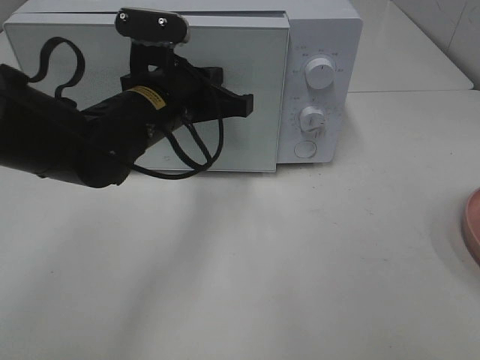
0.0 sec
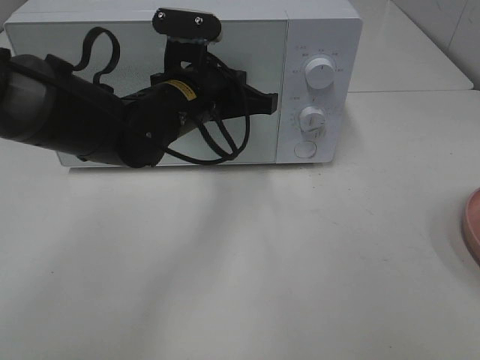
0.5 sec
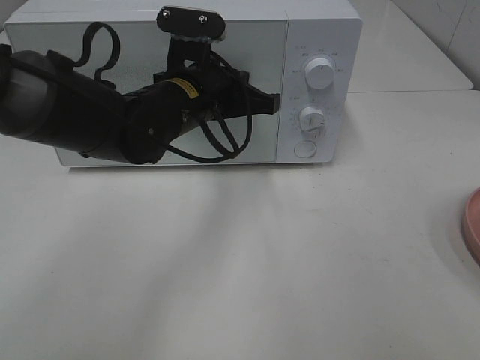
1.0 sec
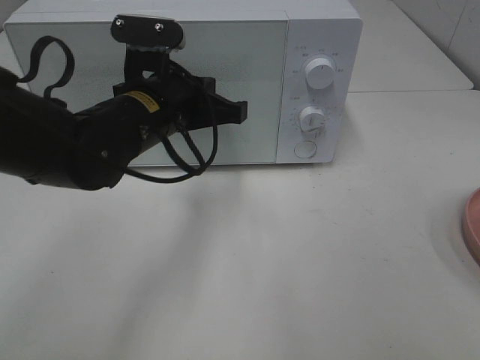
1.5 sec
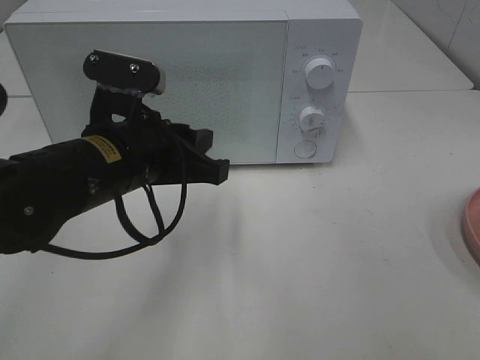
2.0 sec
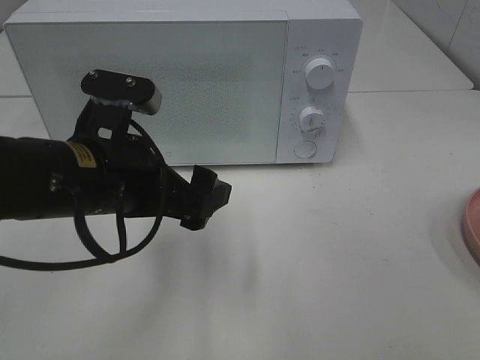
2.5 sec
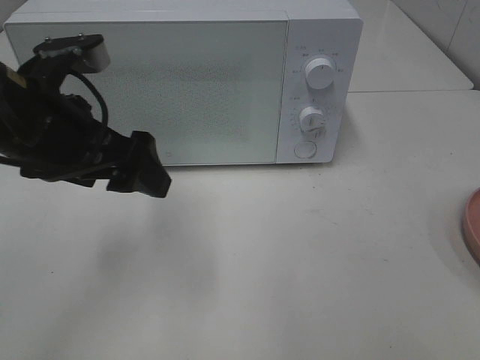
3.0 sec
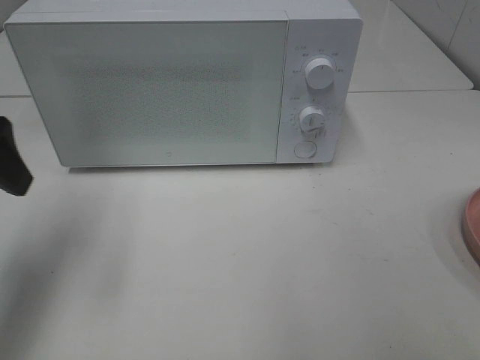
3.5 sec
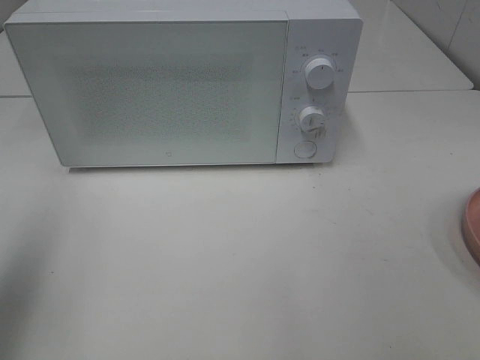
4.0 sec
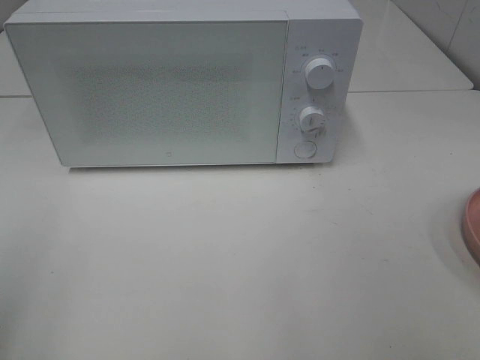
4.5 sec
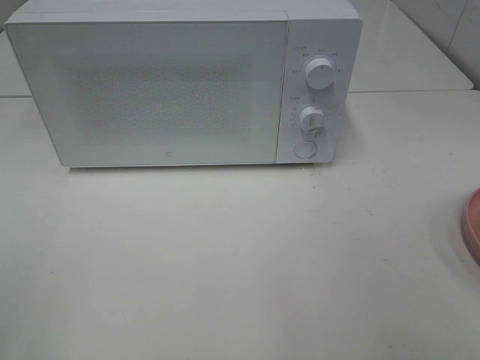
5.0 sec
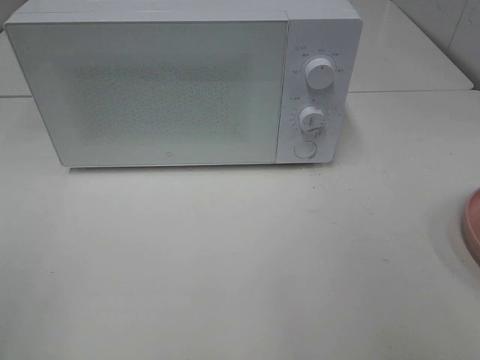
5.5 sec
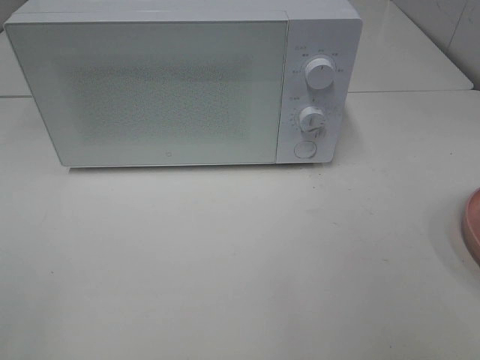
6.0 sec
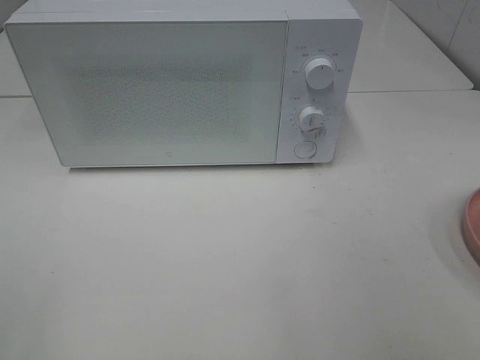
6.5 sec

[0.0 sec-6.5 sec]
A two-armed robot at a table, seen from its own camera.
Task of the whole recording: Heat Sandwich.
0.0 sec to 2.0 sec: The left gripper travels backward by about 10 cm, and opens.
2.0 sec to 4.5 sec: The left gripper shifts some 30 cm to the left, backward and upward, and opens its fingers.

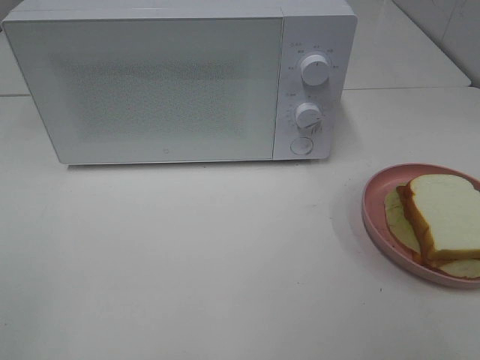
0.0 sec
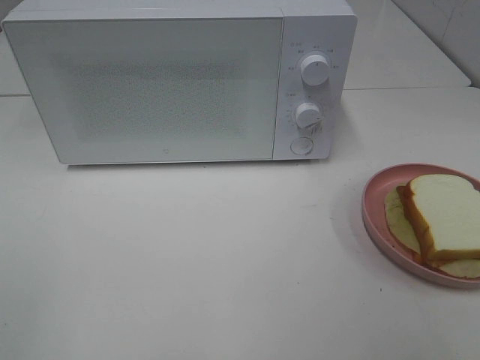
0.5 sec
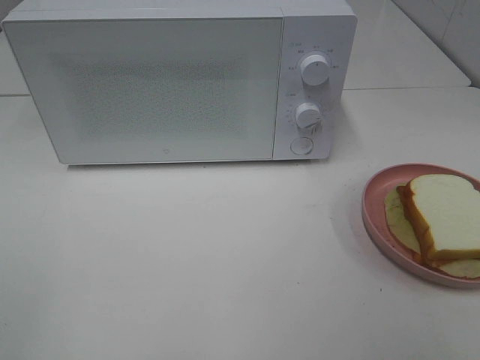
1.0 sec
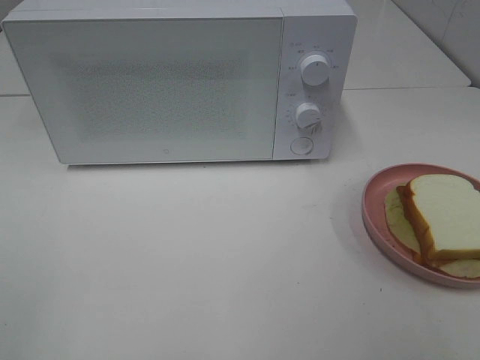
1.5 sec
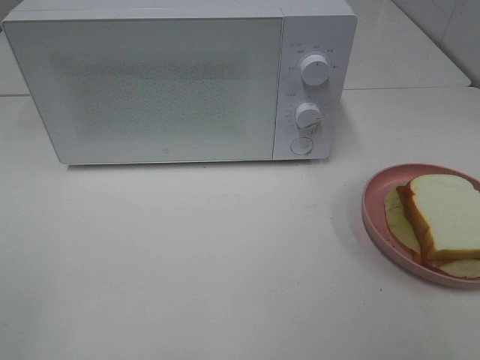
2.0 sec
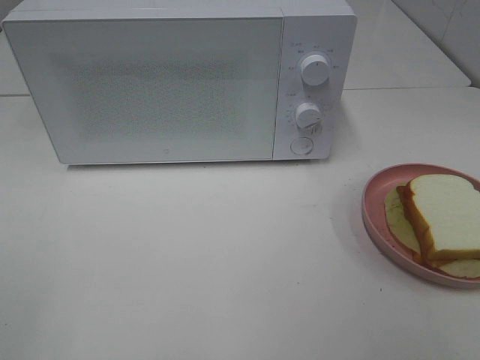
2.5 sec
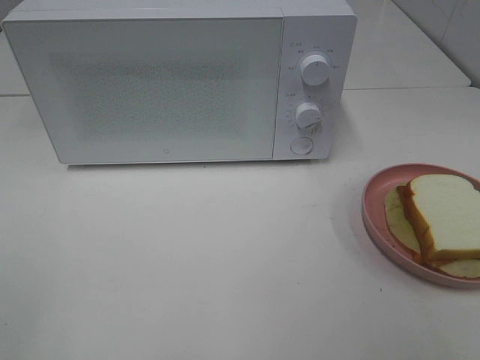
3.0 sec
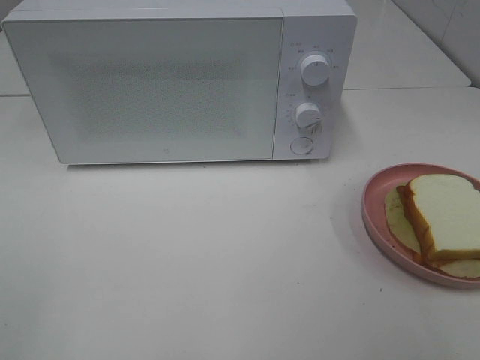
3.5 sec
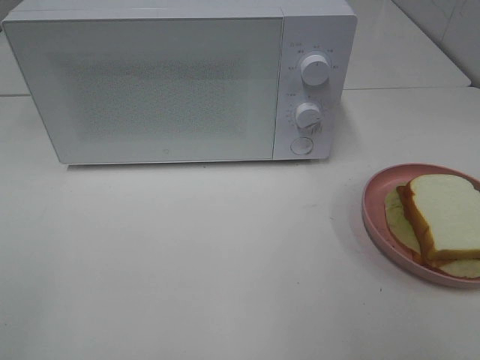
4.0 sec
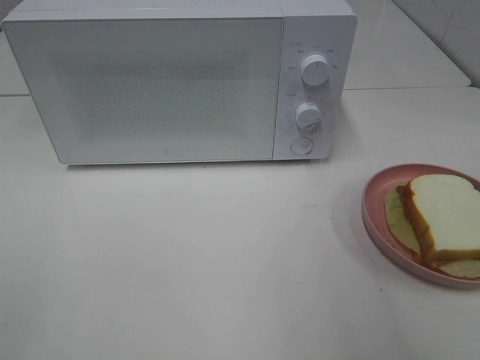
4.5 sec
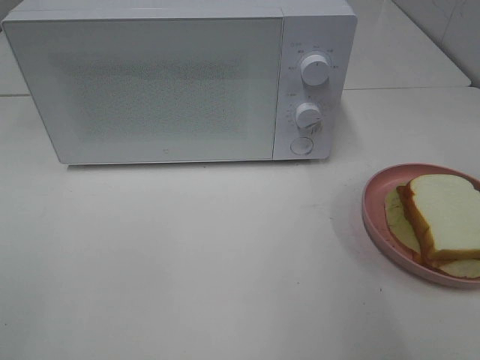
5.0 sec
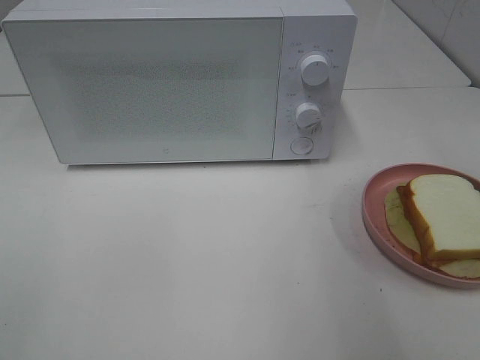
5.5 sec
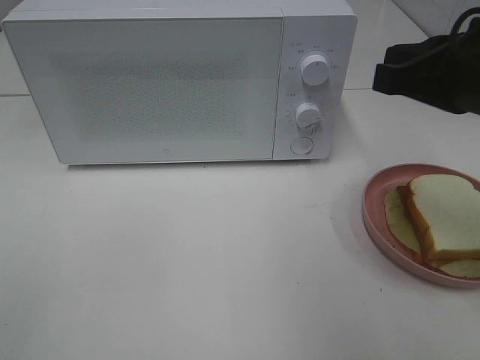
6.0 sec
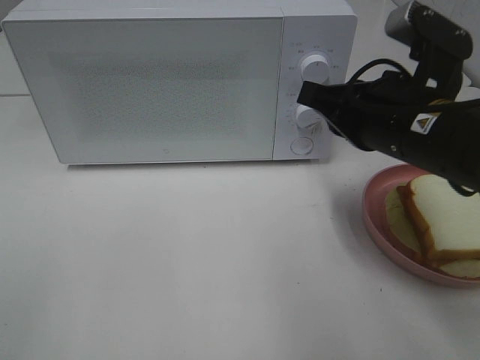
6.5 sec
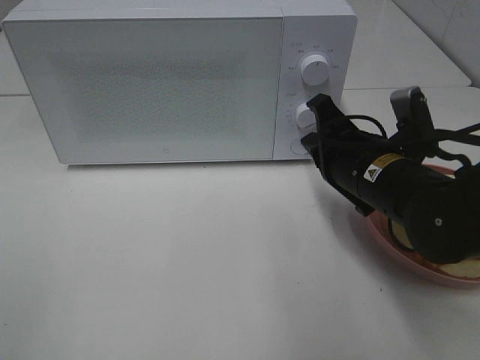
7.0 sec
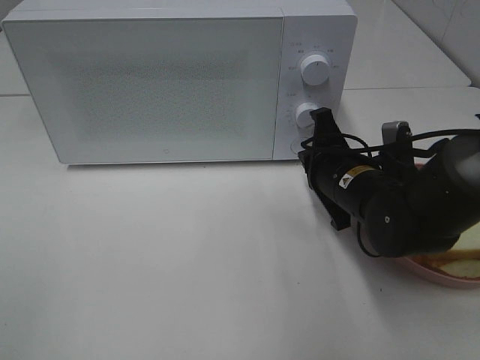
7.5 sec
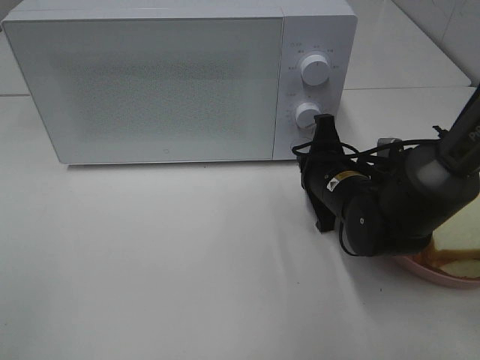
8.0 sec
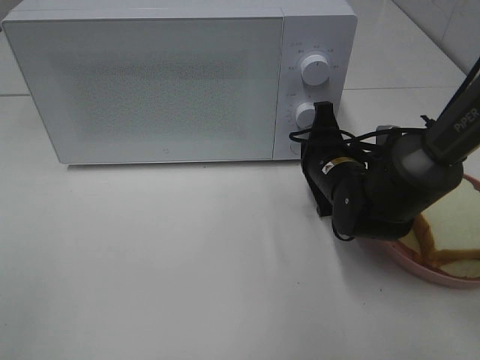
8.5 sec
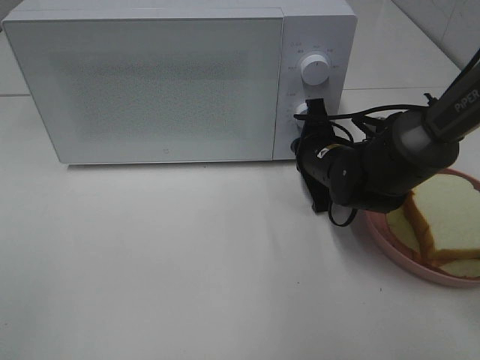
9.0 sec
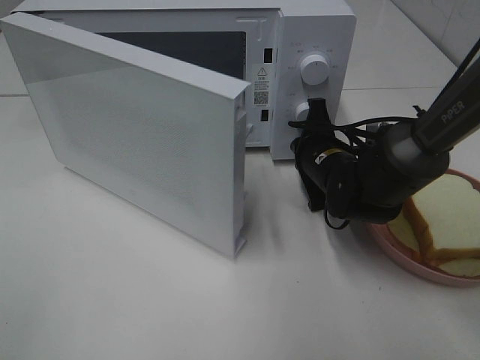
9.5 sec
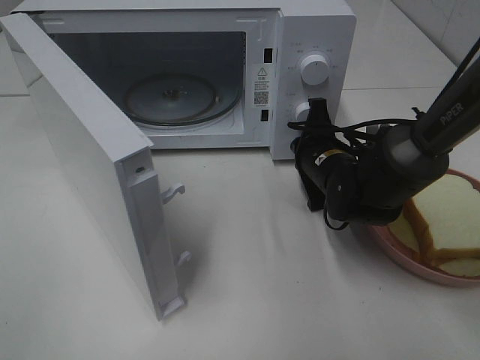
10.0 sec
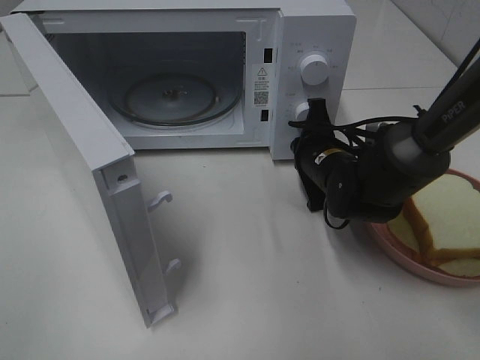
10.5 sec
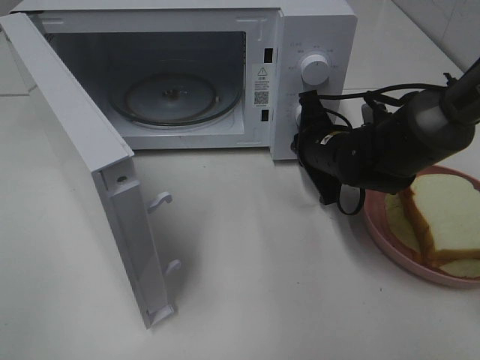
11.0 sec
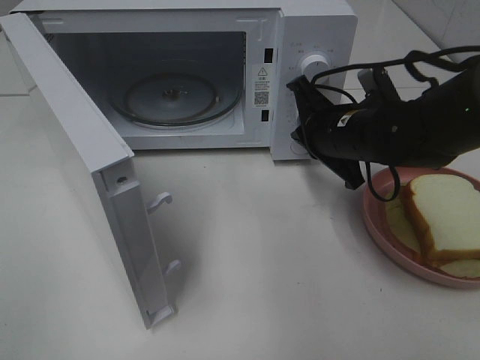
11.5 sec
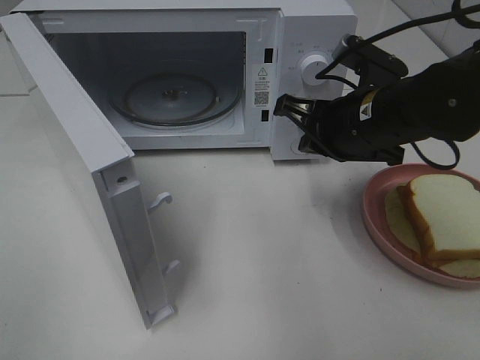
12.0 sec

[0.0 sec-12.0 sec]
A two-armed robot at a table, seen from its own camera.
Task of the whole recording: Heat Sandwich.
Step, 0.0 sec to 11.0 sec: Right hand: press the switch.
0.0 sec to 2.0 sec: The two grippers keep their place.
4.0 sec to 6.0 sec: The right gripper travels forward and to the left by about 20 cm, and closes up.
6.0 sec to 8.0 sec: The right gripper shifts some 20 cm downward and forward.
10.0 sec to 12.0 sec: The right gripper goes approximately 15 cm upward and backward.

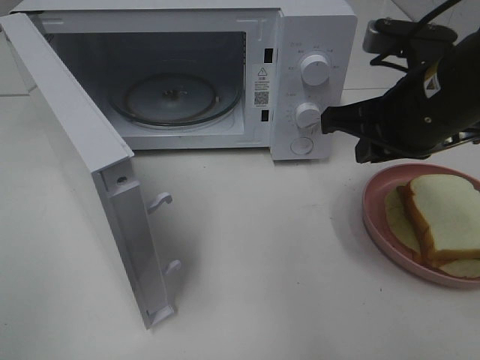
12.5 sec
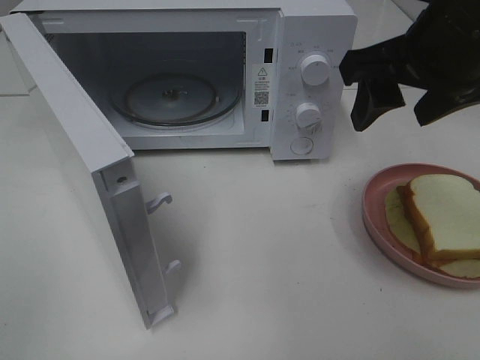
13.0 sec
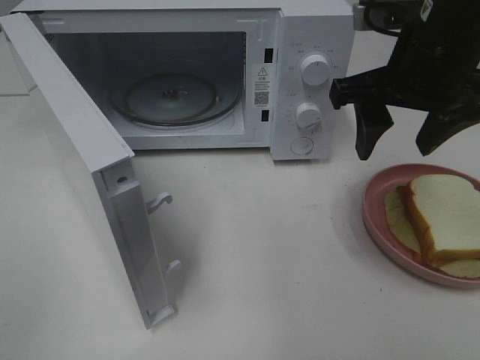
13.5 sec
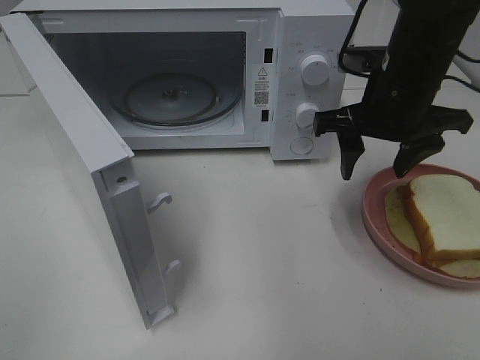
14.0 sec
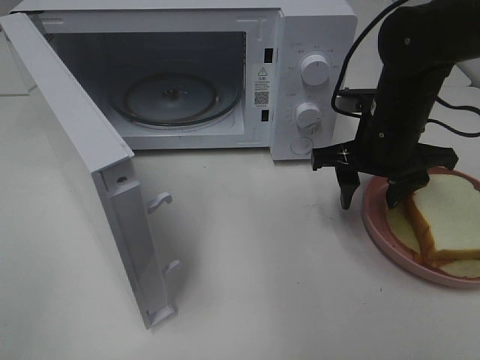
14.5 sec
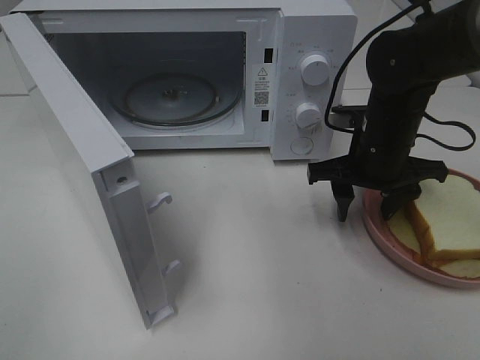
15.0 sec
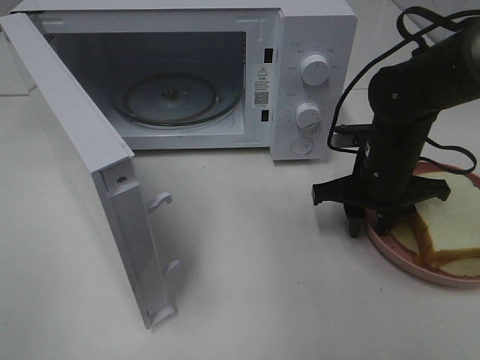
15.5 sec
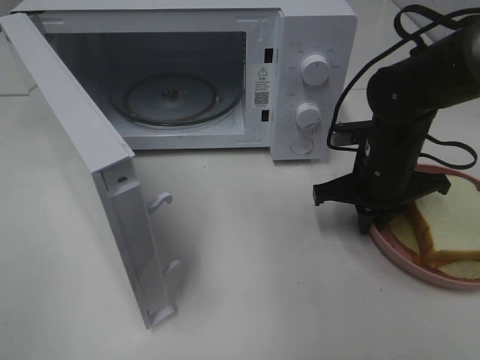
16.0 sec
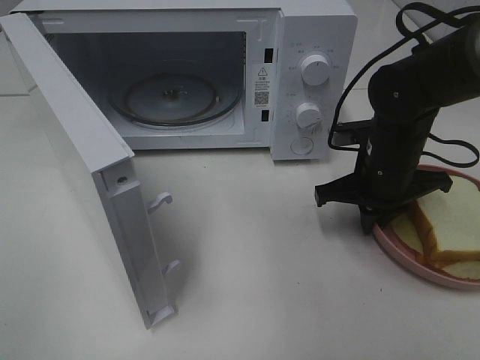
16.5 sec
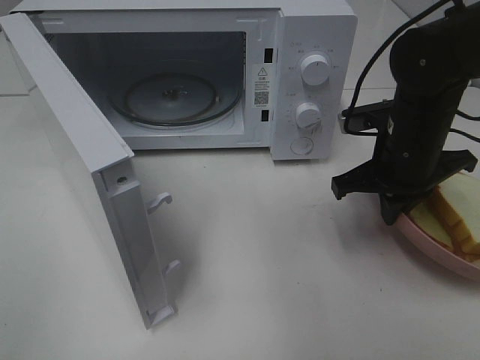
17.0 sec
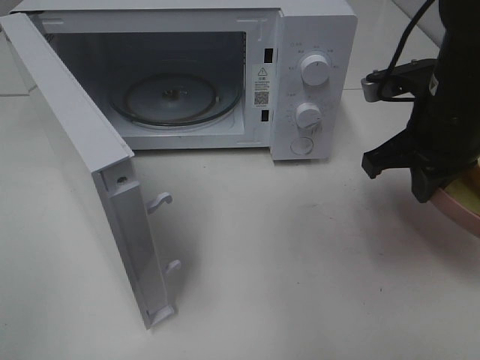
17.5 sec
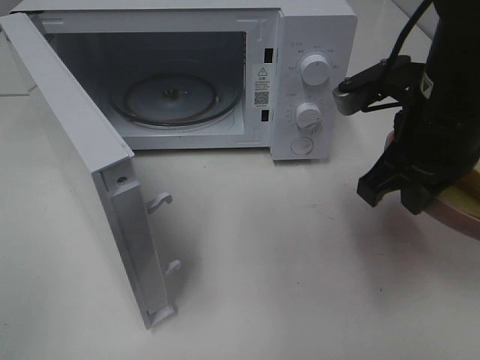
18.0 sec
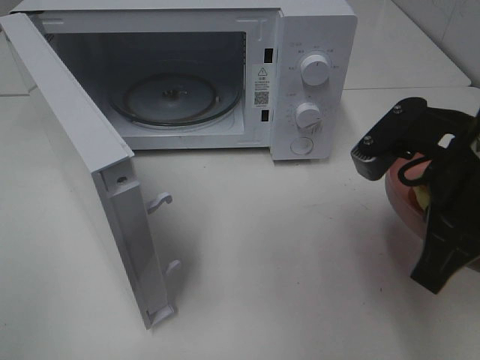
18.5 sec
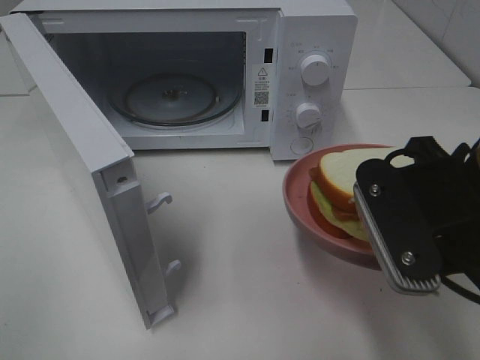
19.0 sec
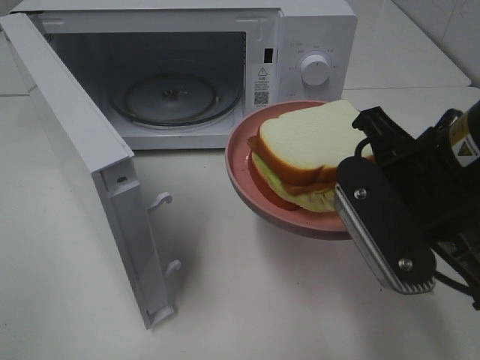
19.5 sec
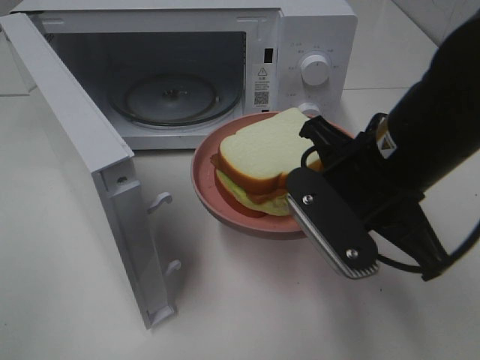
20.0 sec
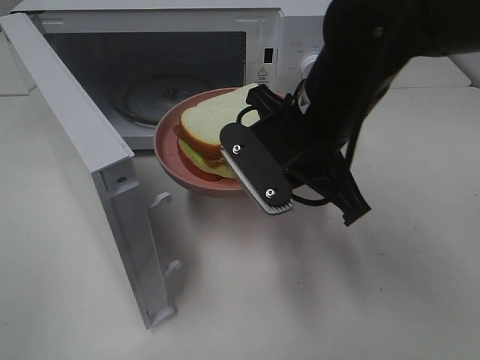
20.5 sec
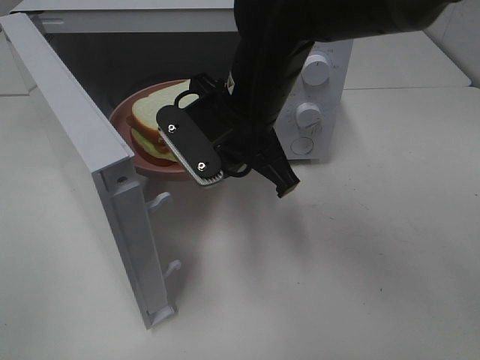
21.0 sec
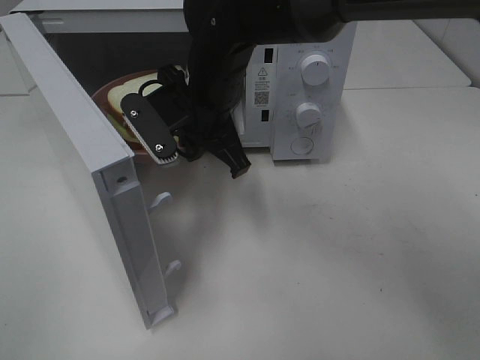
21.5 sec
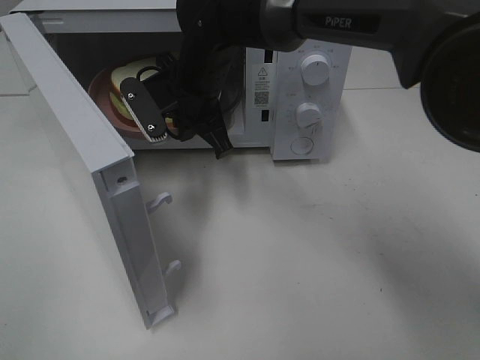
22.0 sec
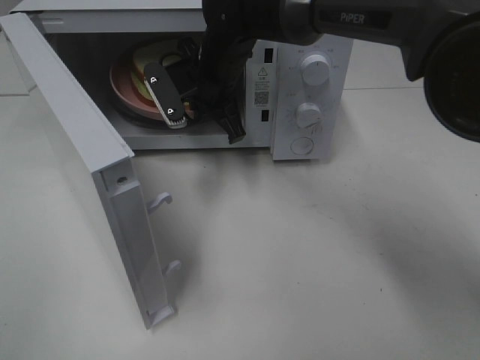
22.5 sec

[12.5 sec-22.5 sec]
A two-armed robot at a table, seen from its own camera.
Task of the whole recording: Heat Sandwich.
Step, 12.5 sec to 15.5 sec: Right hand: grab the plate with the sandwich.
12.5 sec to 14.5 sec: The right gripper is displaced downward and forward by some 10 cm, and opens.
14.5 sec to 16.5 sec: The right gripper closes.
16.5 sec to 18.5 sec: The right gripper is displaced backward and upward by approximately 20 cm.
18.5 sec to 20.5 sec: The right gripper goes about 15 cm to the left and forward.
20.5 sec to 22.5 sec: The right gripper heads forward and to the left, covering about 20 cm.
